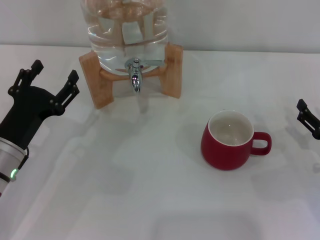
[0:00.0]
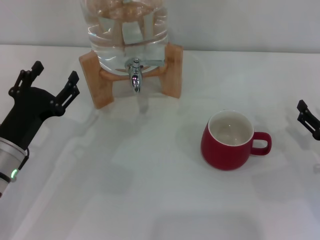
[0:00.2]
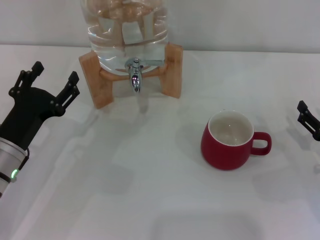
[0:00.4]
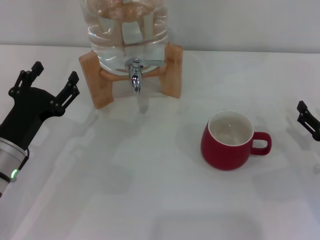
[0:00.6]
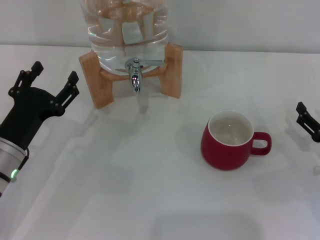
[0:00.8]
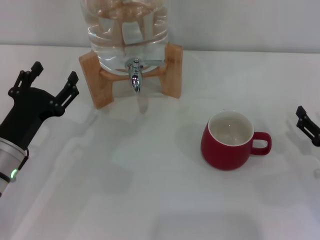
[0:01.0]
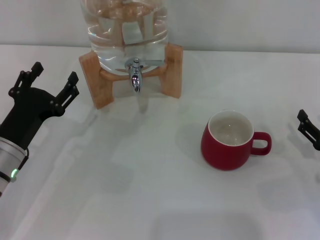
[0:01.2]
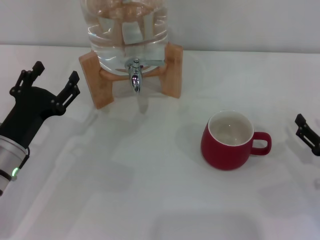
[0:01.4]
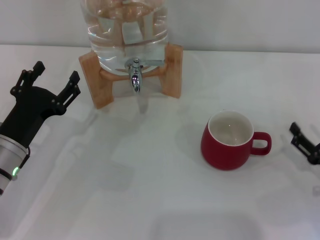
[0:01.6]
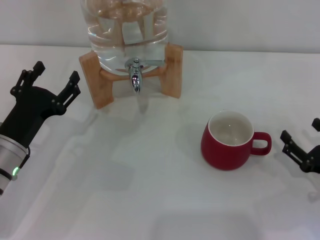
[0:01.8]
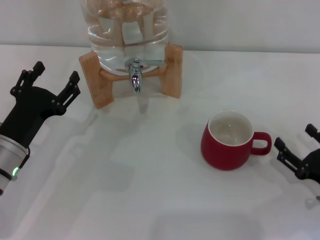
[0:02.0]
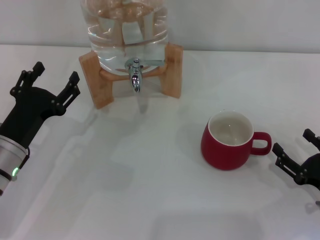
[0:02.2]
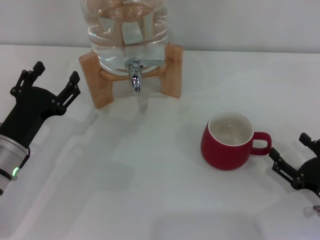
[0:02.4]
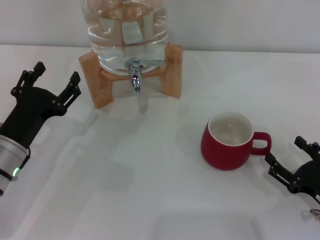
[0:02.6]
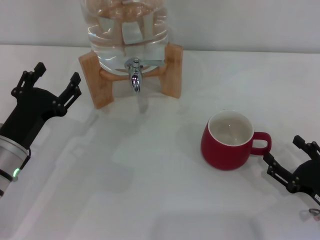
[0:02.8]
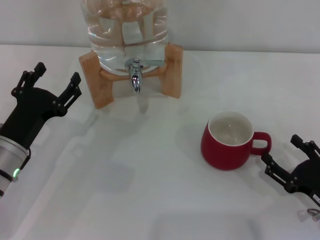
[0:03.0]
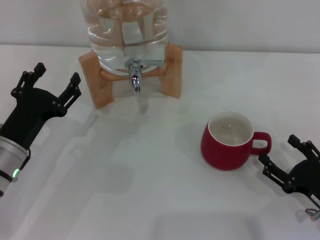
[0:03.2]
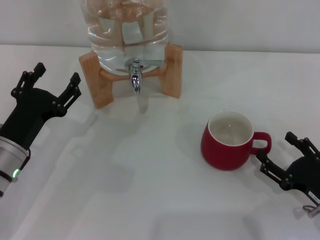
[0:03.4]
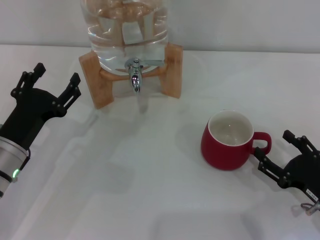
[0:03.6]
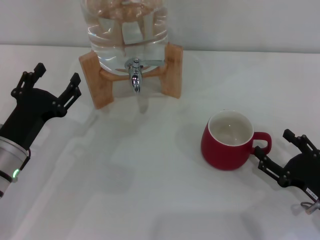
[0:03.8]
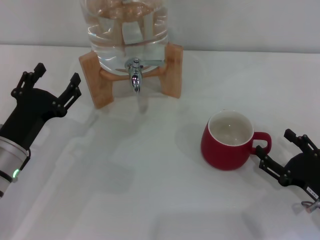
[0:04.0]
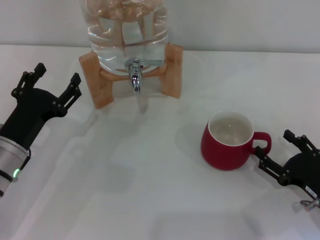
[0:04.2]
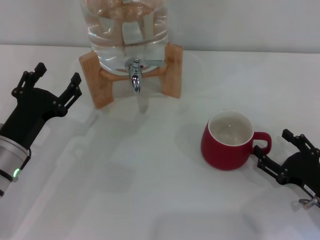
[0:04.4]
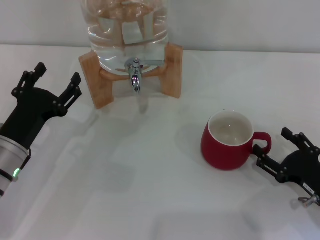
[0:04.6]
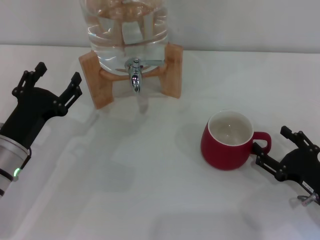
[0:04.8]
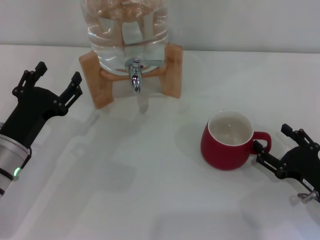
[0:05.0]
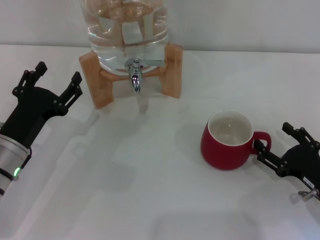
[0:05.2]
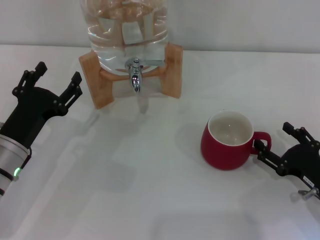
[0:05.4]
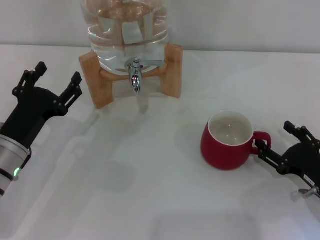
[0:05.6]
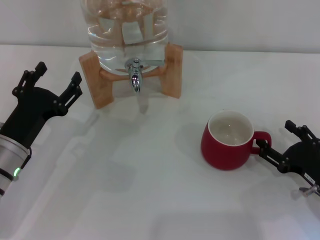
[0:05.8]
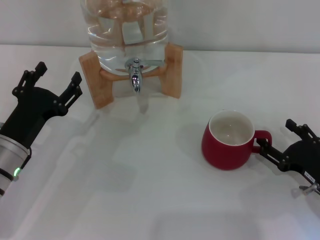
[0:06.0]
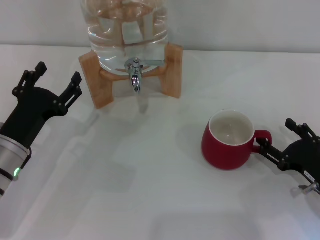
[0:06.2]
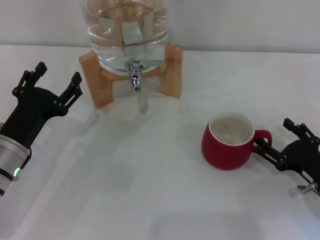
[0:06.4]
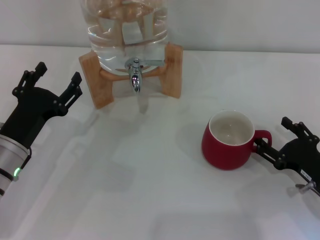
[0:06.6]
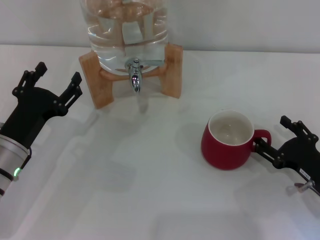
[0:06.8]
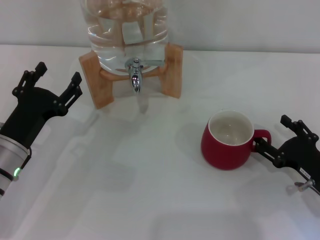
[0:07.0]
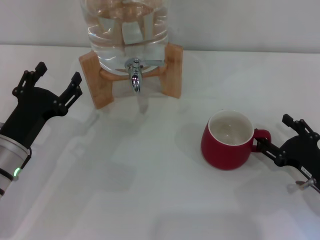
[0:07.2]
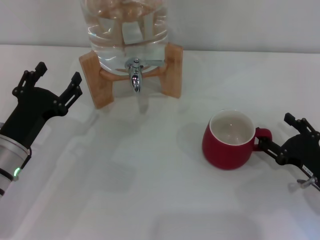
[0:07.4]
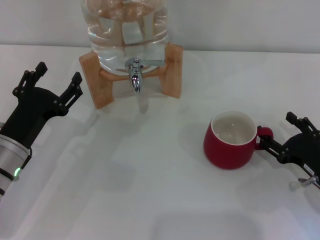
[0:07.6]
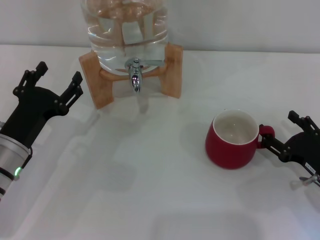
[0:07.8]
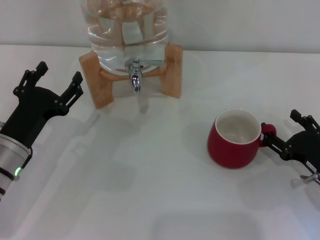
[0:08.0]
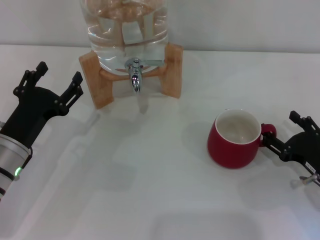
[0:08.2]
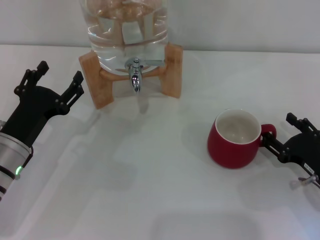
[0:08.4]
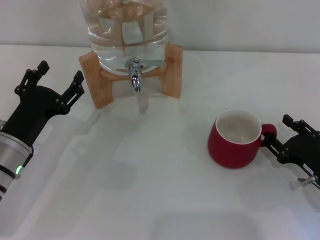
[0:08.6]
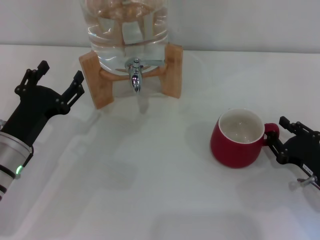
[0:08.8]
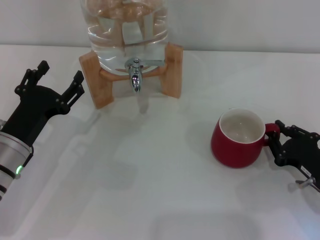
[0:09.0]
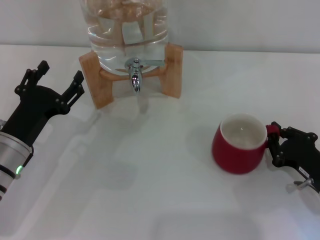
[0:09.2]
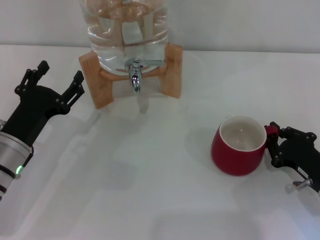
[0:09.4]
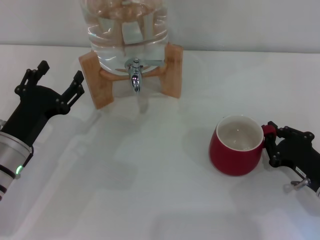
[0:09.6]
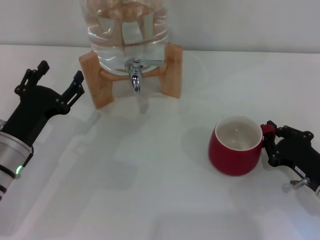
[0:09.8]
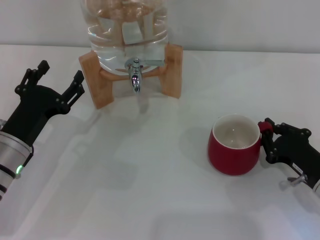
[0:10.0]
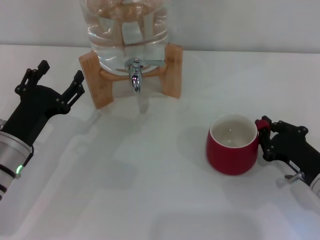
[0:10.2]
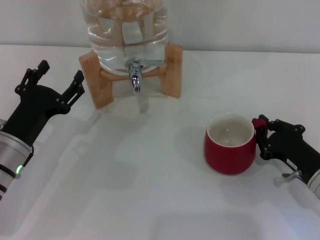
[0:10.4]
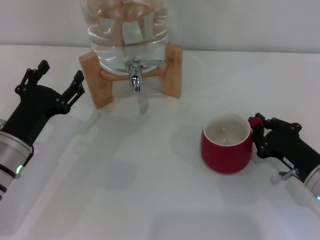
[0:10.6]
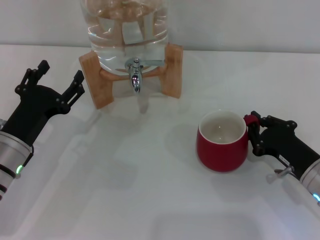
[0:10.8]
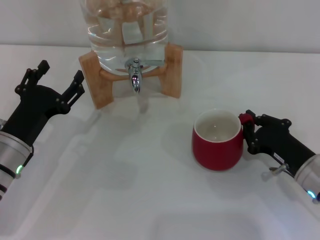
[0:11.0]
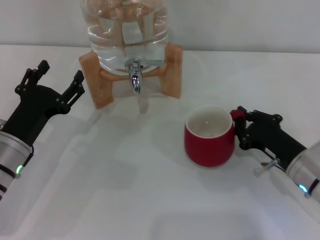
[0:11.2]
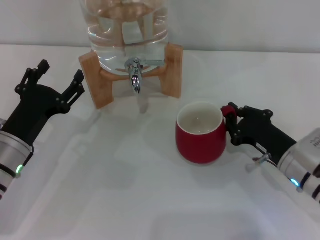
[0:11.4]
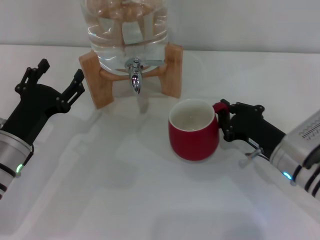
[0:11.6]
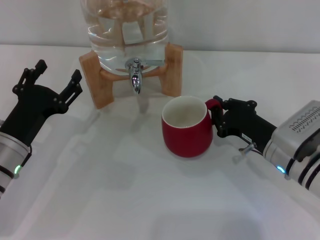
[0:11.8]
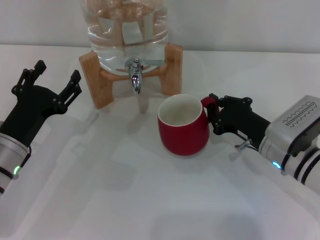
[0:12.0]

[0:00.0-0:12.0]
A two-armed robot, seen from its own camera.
Task of the whole recording: the right gripper pick up the red cup and place it horizontally under the faucet, the left gripper turn on the faucet to fill the cup, and then turn off the faucet.
0:00.0 to 0:01.6: The grippers make only small movements.
0:01.6 to 0:06.0: The grippers stay close to where they were, moving slightly.
0:06.0 to 0:07.6: Neither gripper changes place.
0:07.6 to 0:09.0: The right gripper closes up.
0:09.0 to 0:10.4: The right gripper closes.
0:10.4 to 0:12.0: The right gripper goes some 10 cm to the left and forward.

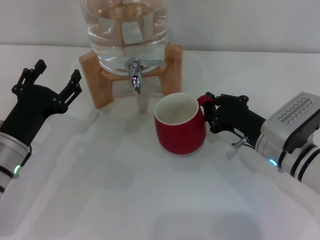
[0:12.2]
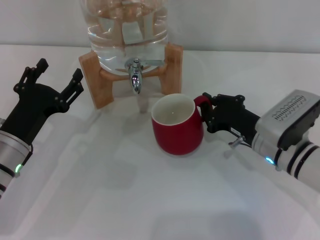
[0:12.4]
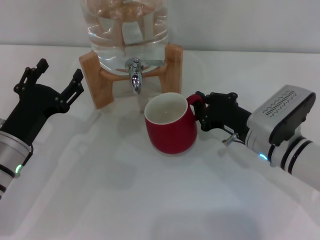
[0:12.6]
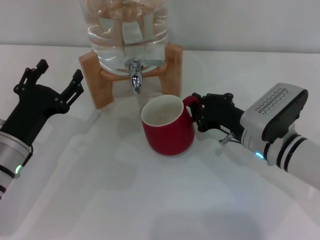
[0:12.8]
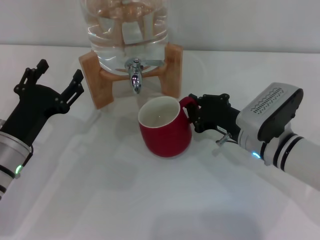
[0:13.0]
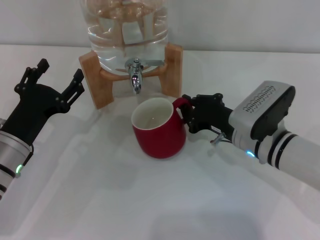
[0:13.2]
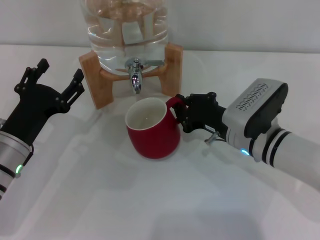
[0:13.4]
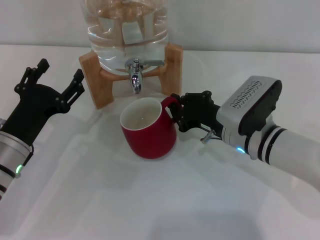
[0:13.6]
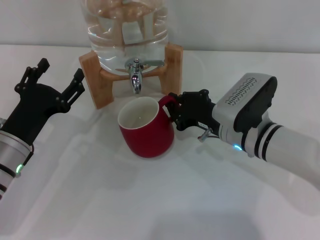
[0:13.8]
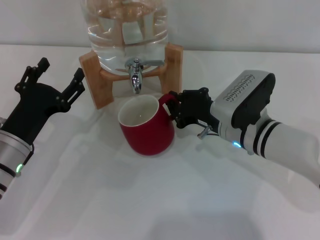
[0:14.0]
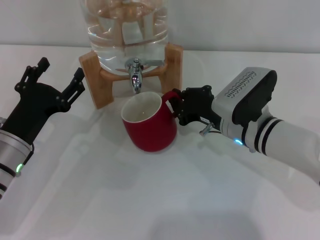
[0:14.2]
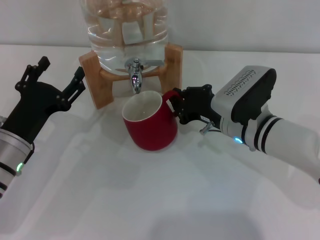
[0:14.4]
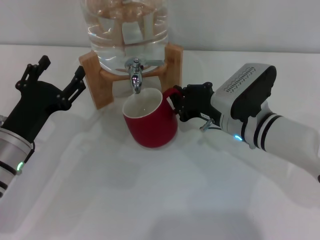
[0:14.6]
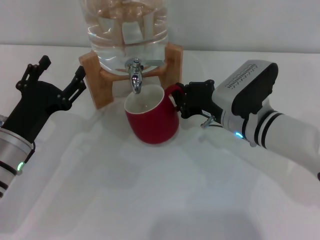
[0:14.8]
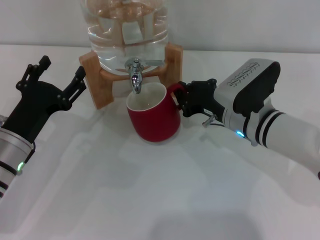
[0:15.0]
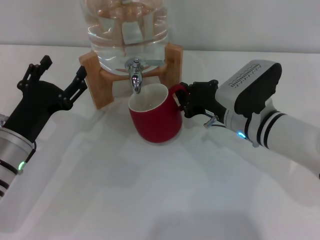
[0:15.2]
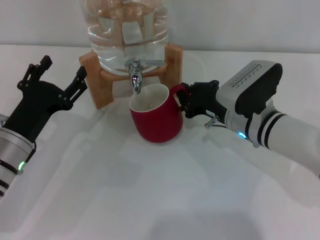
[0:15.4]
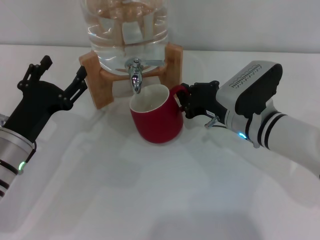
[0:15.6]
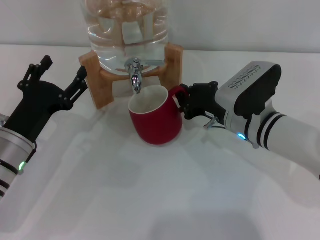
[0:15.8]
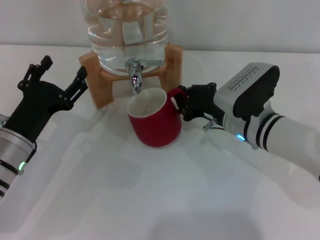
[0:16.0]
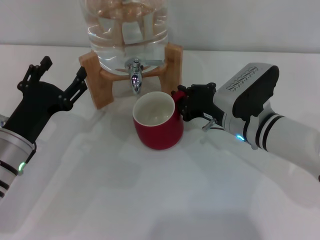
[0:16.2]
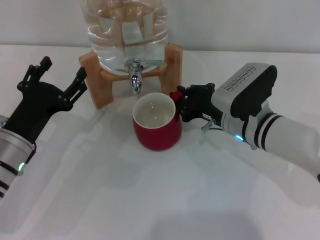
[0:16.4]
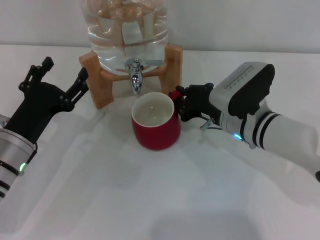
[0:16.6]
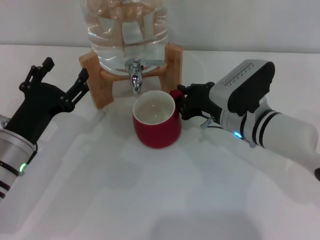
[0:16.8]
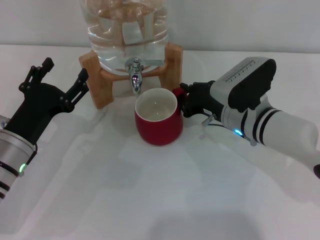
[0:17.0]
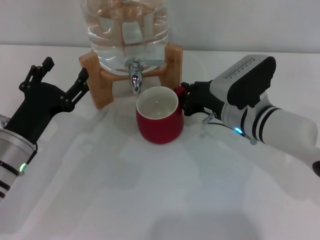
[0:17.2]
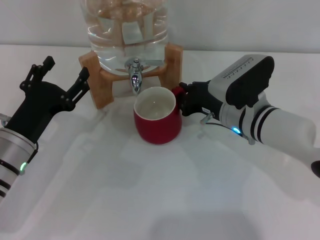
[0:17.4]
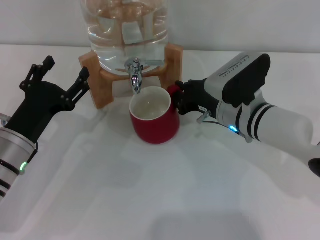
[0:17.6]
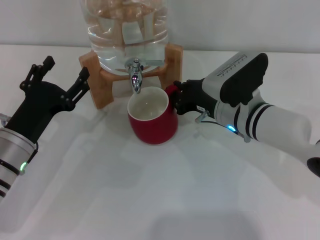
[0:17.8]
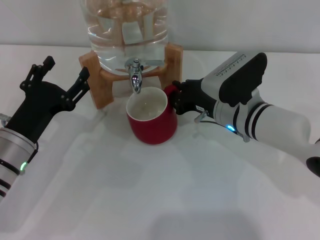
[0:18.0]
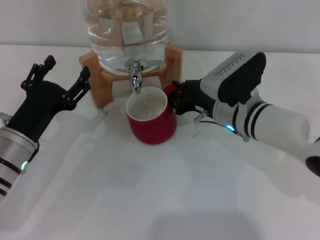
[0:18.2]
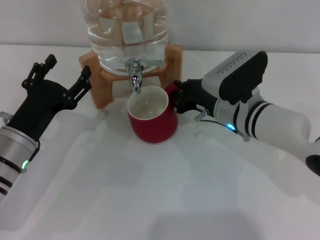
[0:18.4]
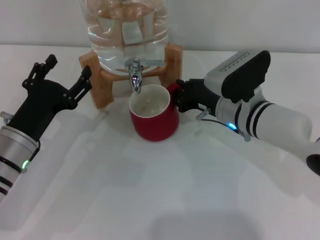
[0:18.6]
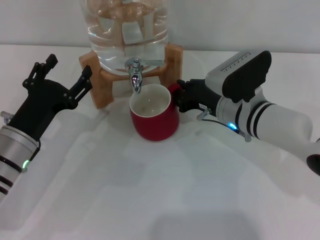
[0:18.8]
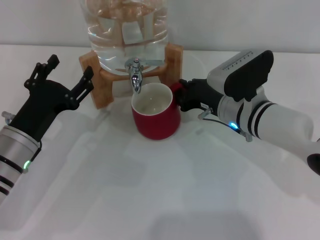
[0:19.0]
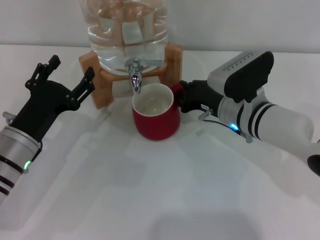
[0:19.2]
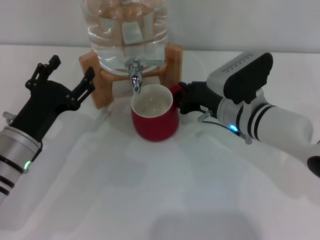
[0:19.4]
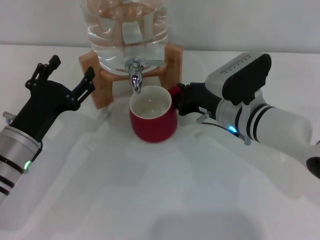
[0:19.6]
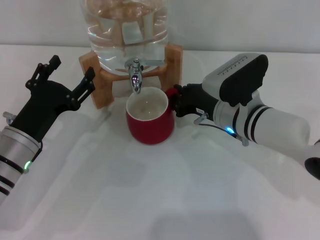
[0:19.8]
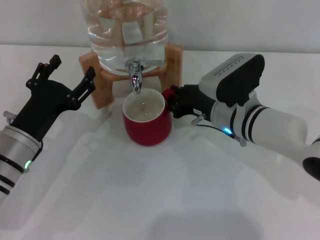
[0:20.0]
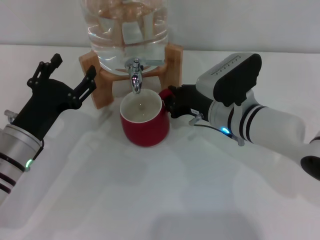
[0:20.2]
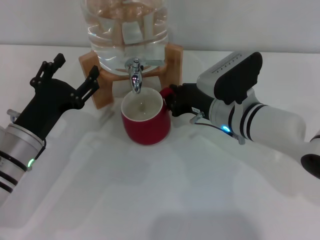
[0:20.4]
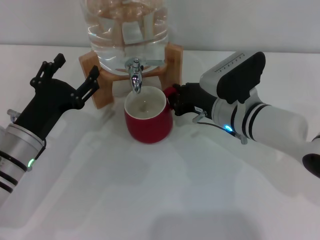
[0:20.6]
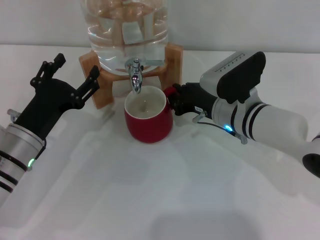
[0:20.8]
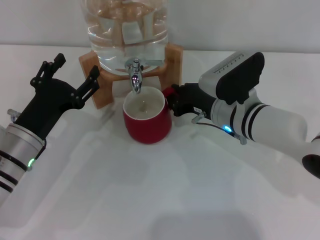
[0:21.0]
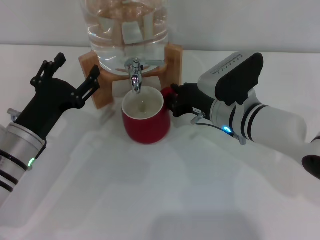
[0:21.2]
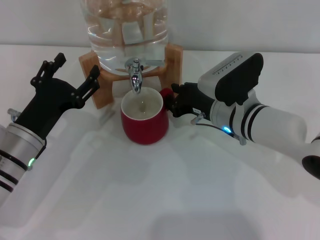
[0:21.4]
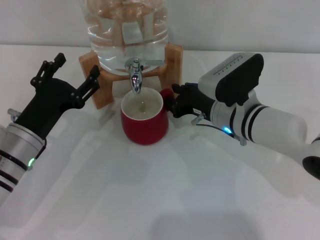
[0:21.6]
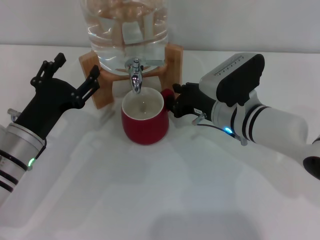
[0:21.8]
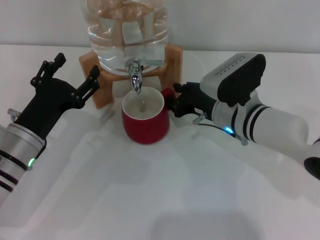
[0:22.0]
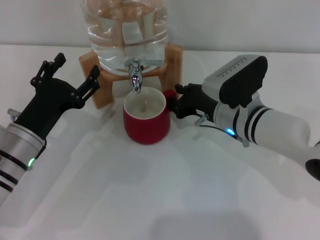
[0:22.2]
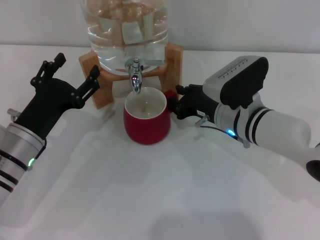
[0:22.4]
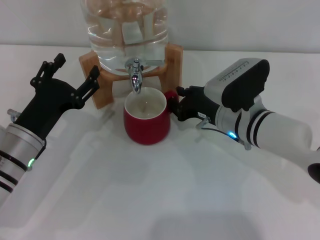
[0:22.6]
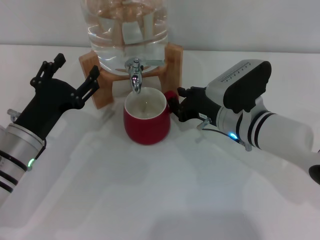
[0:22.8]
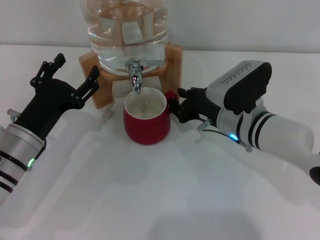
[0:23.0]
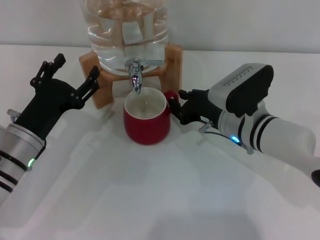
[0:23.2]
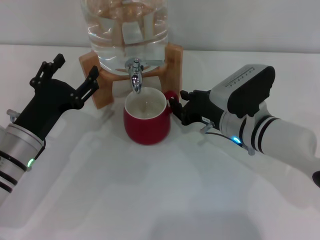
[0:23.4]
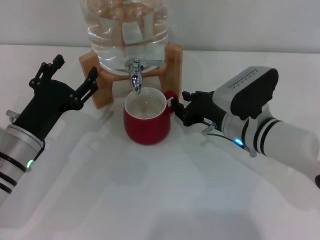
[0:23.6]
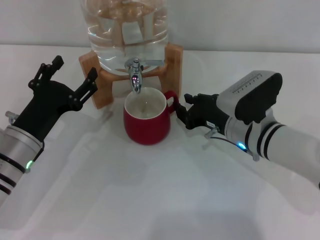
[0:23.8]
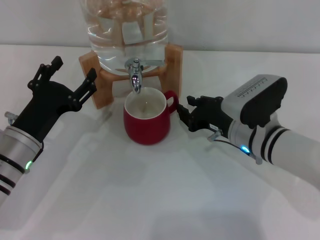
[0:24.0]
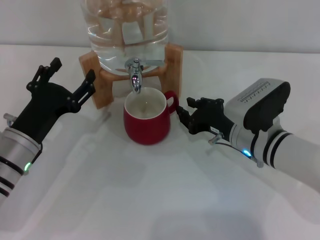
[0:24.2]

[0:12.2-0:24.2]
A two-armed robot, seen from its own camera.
Task of the whole recording: the right gripper pick up the red cup and place it horizontally under the faucet, the left gripper turn on the faucet to fill the cup, and then turn off the faucet.
0:12.2 to 0:13.8: The right gripper travels to the left by about 5 cm.
0:13.8 to 0:15.2: The grippers move only a little.
0:15.2 to 0:16.6: Both grippers stay put.
0:16.6 to 0:18.2: There are only small adjustments of the grippers.
0:18.2 to 0:22.6: The two grippers keep their place.
0:22.6 to 0:24.2: The grippers stay close to where they were, moving slightly.
